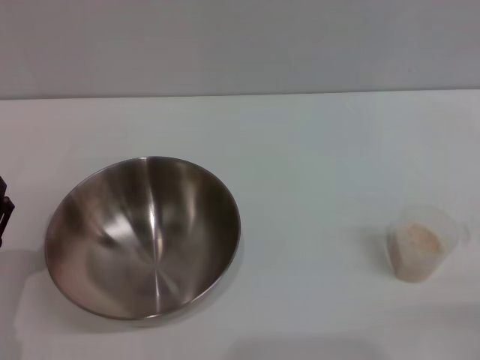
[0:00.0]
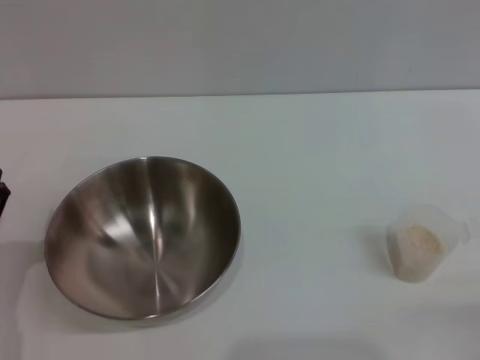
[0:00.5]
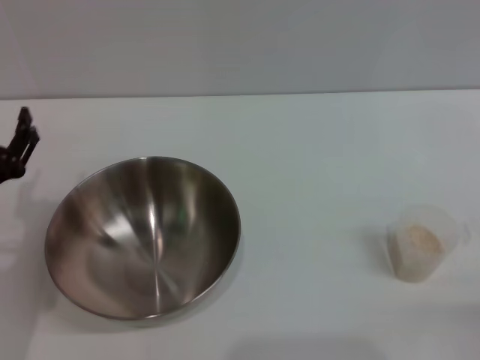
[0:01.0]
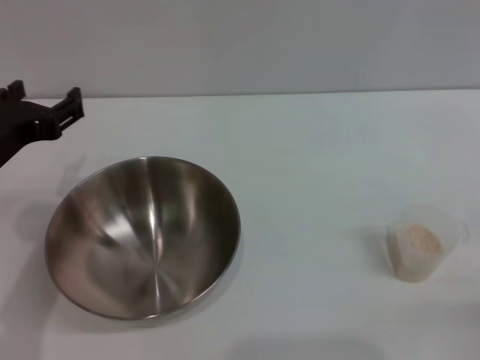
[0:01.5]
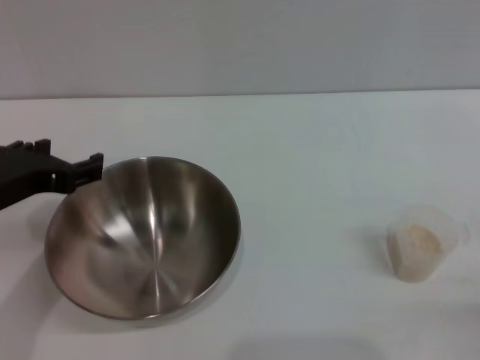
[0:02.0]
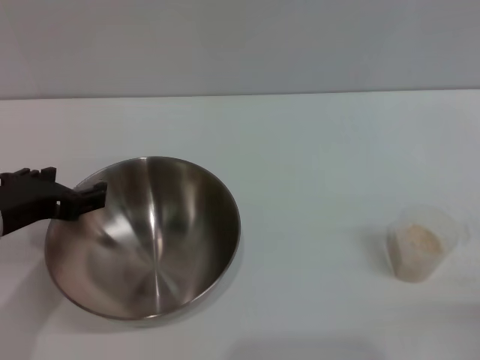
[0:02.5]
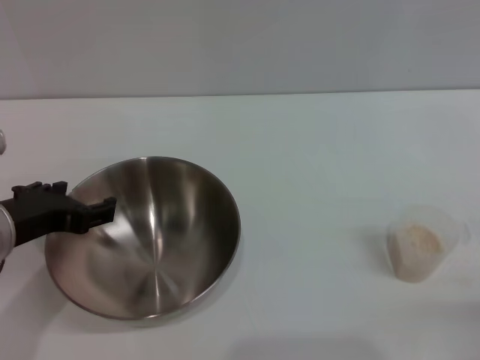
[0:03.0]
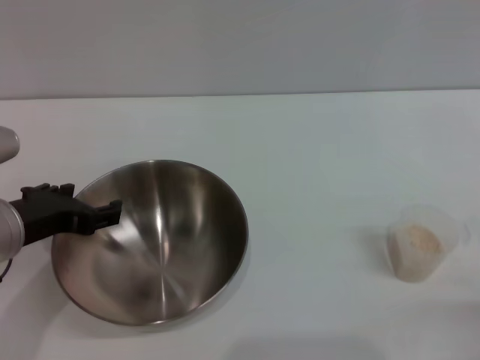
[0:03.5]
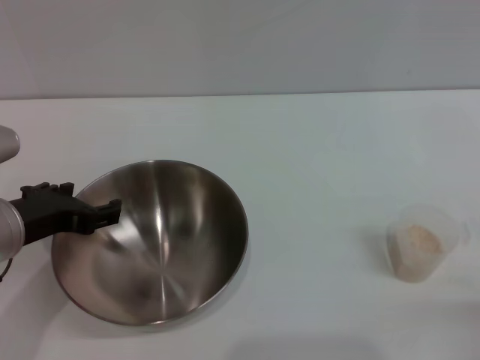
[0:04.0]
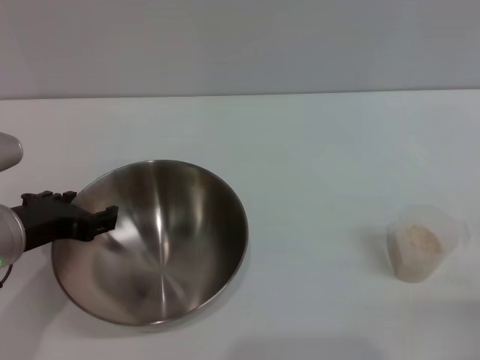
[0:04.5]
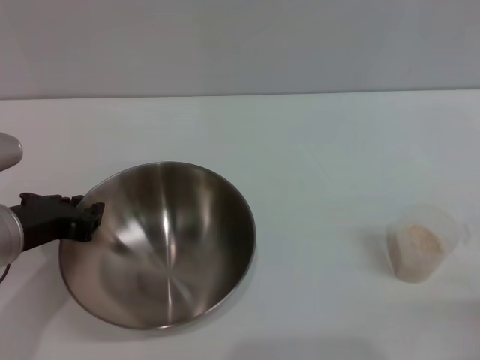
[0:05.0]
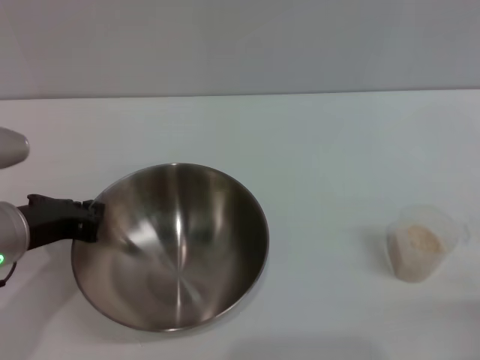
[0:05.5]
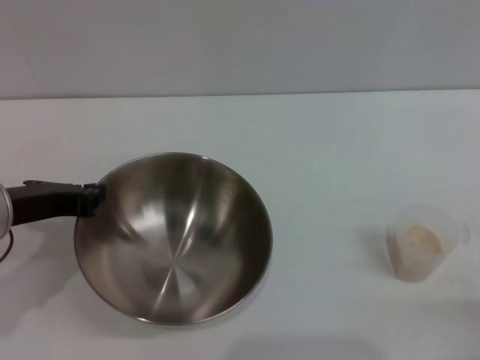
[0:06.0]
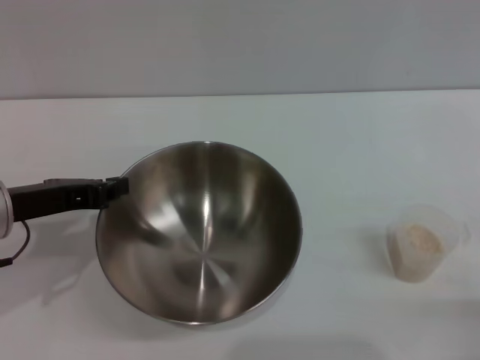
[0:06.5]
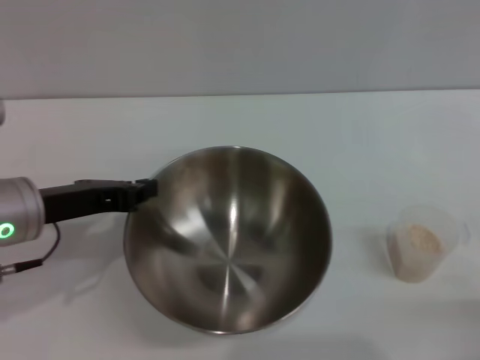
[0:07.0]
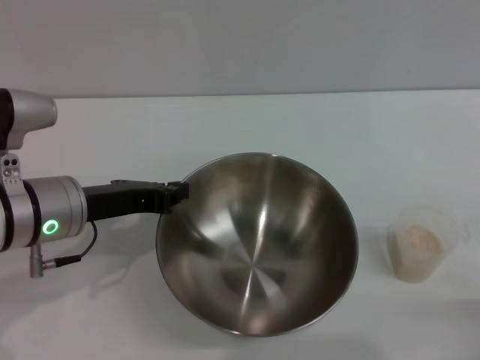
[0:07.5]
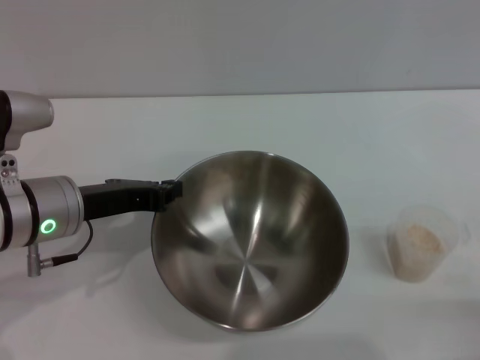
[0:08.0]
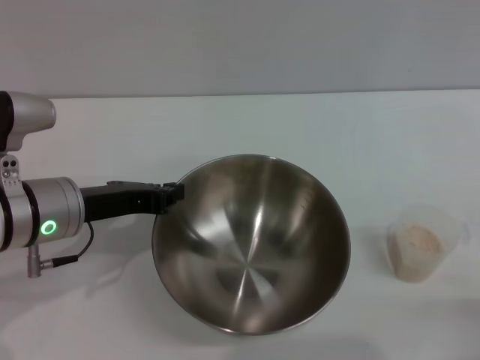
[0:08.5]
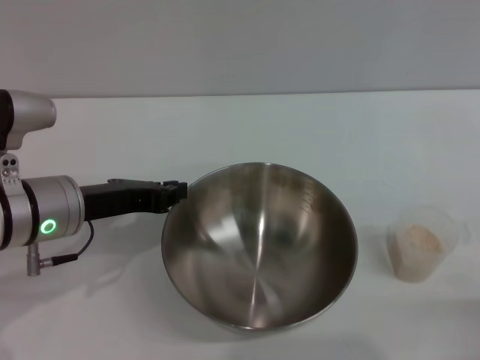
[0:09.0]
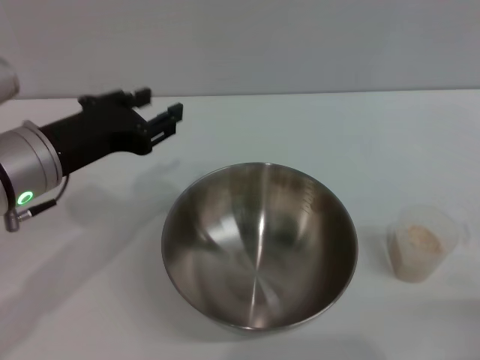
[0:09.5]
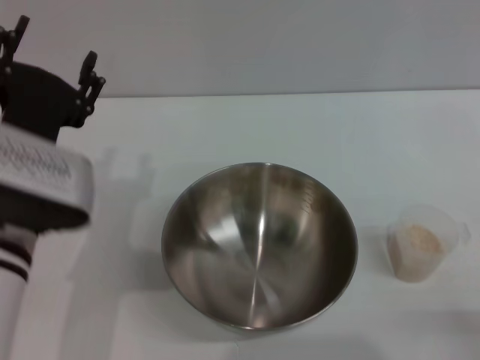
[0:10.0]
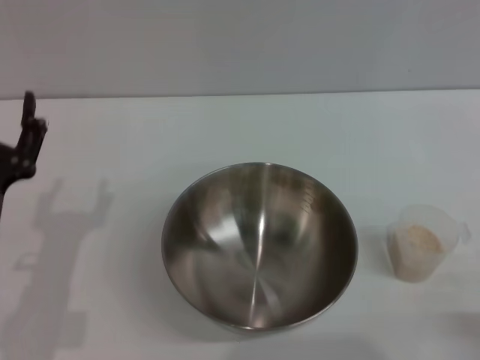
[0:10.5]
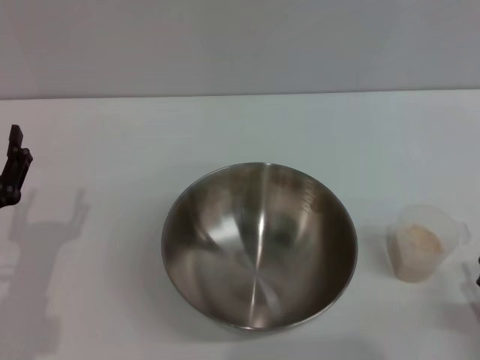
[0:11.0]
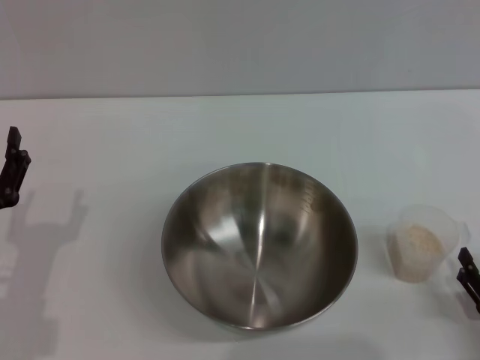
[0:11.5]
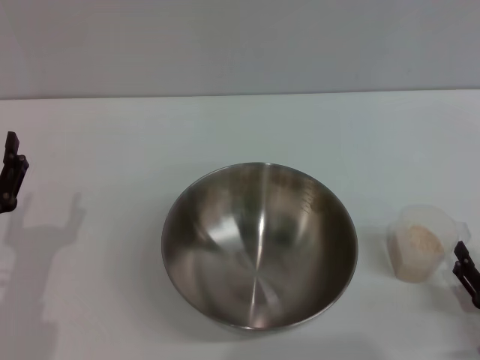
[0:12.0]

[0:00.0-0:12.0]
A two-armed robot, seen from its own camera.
Task of the whole recording: Place the bowl in the middle of the table with one hand and pour the rice from the grain cup into it with the other hand.
Step, 0:00.0 to 0:06.5: Pick up the bowl with the left gripper.
Step, 0:07.5 to 0:09.0: Place the bowl in the center of view with the left gripper.
0:00.0 to 0:02.0: The left gripper heads upward and forward, covering about 15 cm.
0:02.0 to 0:04.0: The grippers stay close to where they were, moving slightly.
0:04.0 to 0:06.0: The left gripper closes its fingers.
0:06.0 to 0:08.0: The left gripper shifts by roughly 5 cm.
0:08.0 to 0:10.0: The left gripper moves backward, approximately 5 cm, and opens up.
0:10.0 to 0:12.0: The left gripper moves downward and to the left, roughly 15 cm, while the right gripper moves forward, some 5 cm.

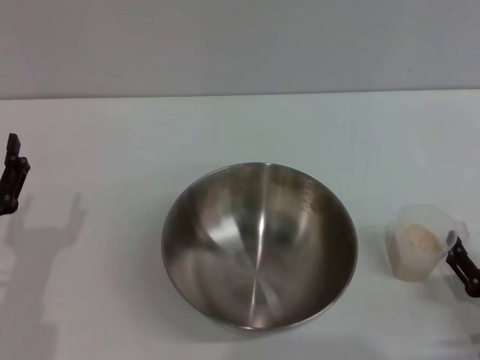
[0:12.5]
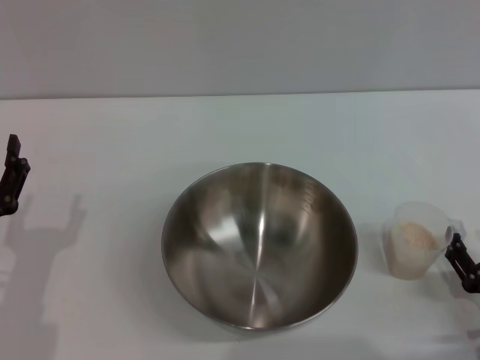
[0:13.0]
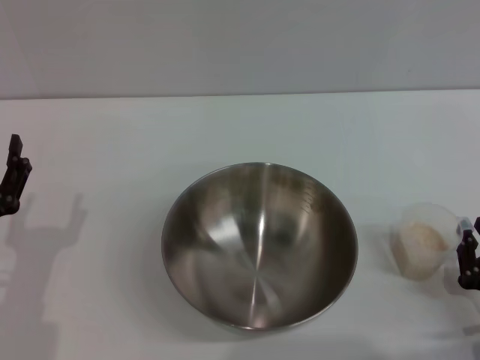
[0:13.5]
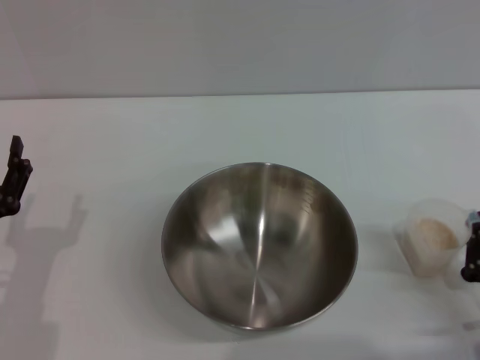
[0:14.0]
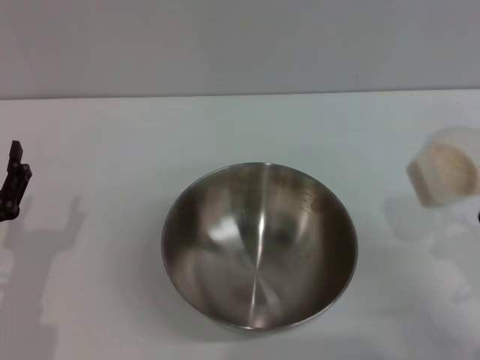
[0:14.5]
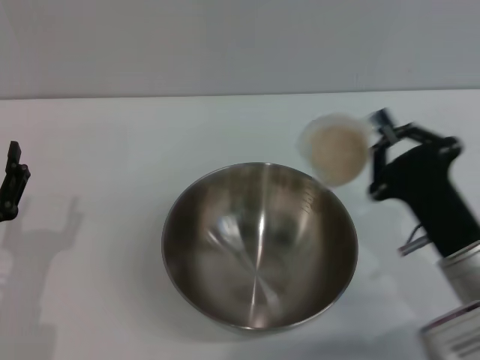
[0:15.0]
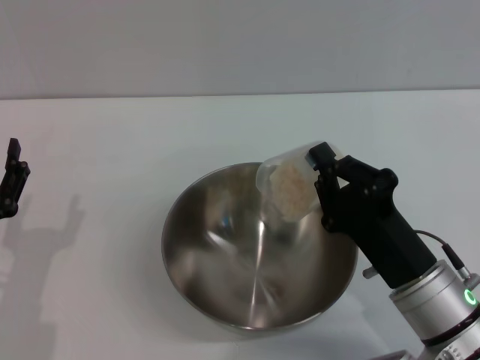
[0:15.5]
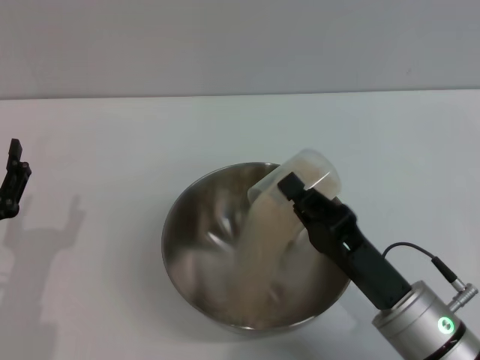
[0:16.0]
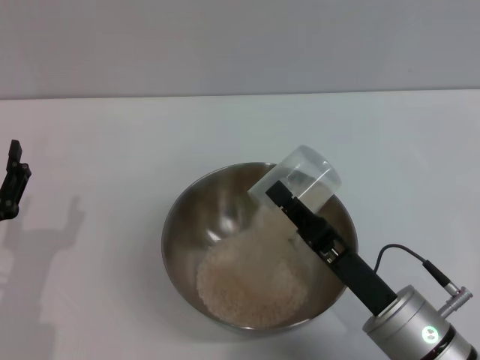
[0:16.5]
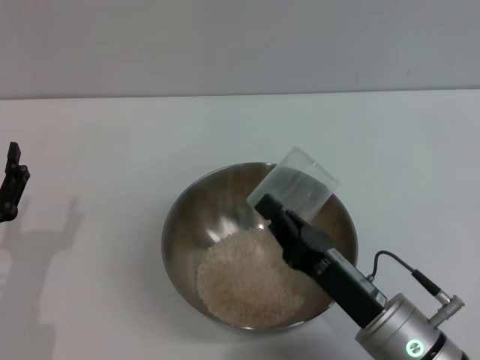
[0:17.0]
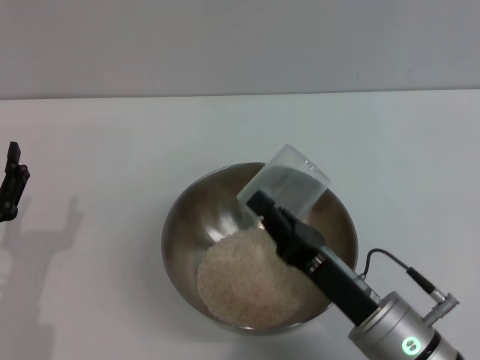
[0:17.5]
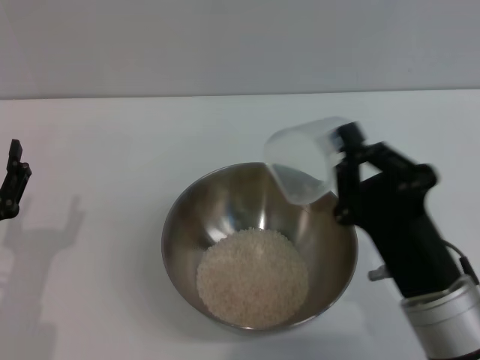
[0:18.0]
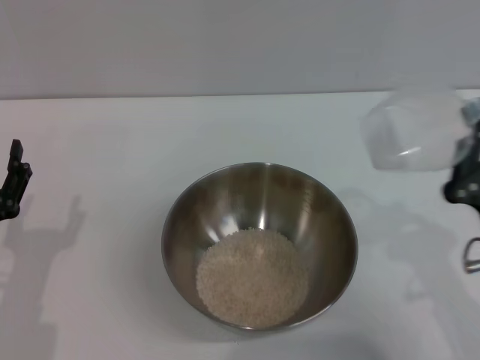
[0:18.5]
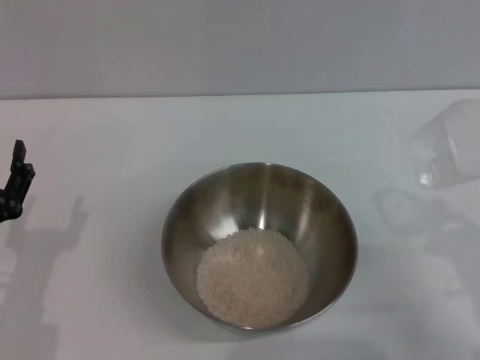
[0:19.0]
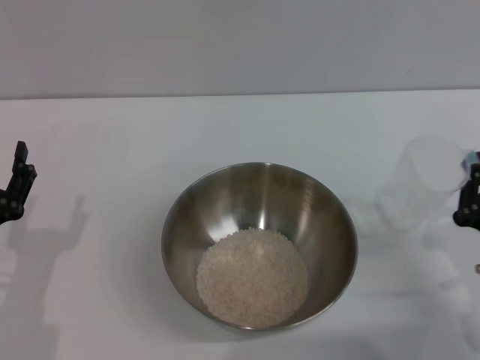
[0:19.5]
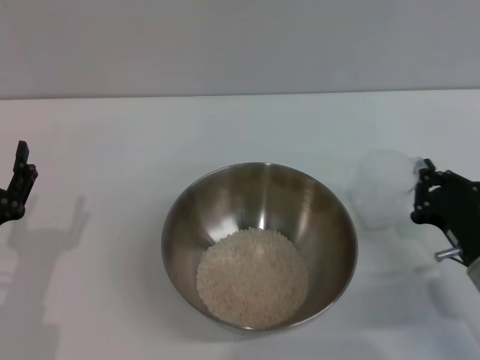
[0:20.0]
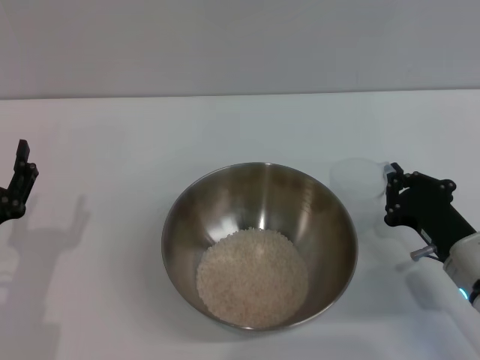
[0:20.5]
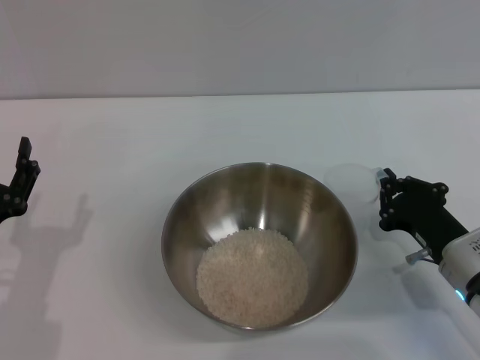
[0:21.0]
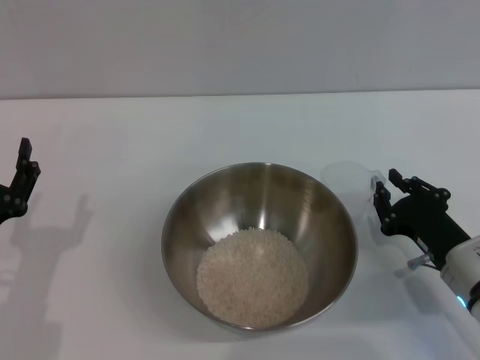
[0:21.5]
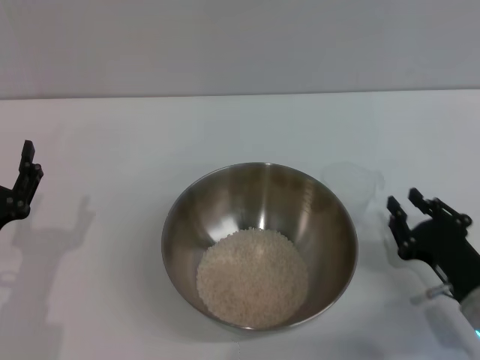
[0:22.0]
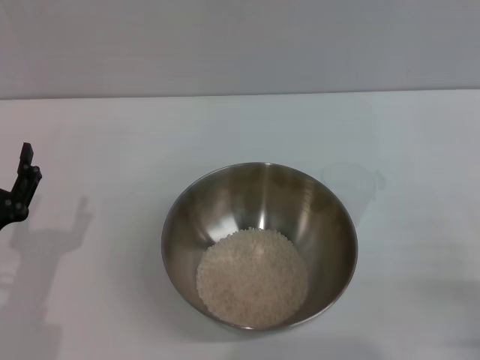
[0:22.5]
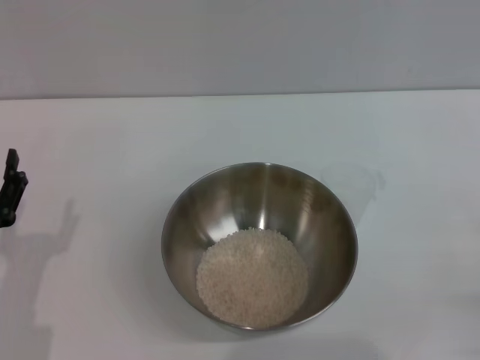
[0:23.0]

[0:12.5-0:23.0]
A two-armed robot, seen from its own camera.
Task of the whole recording: Place the bowl in the middle of the table with one hand and pour the rice from the grain cup into it with the other hand.
Step, 0:15.0 to 0:18.0: Pour the rice from the cup into the bowl with the right gripper.
Step, 0:19.0 to 0:22.0: Place the cup on the table with the right gripper.
0:12.5 to 0:14.5: The right gripper is displaced upward by about 5 cm, and closes.
0:14.5 to 0:16.5: The right gripper moves to the left, roughly 15 cm.
0:16.5 to 0:19.0: The right gripper moves to the right, approximately 15 cm.
0:19.0 to 0:21.0: The right gripper goes roughly 5 cm forward.
0:21.0 to 0:23.0: The right gripper moves backward and to the right, roughly 15 cm, and opens up.
